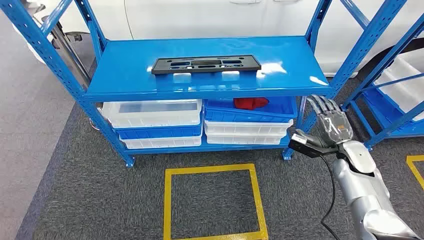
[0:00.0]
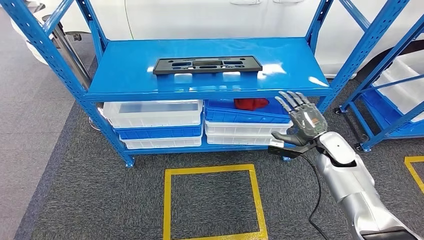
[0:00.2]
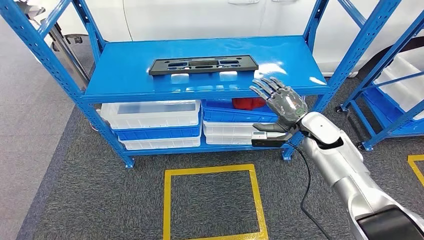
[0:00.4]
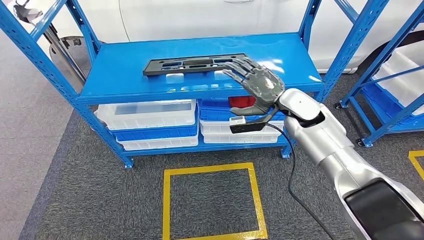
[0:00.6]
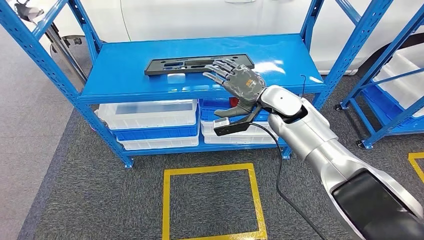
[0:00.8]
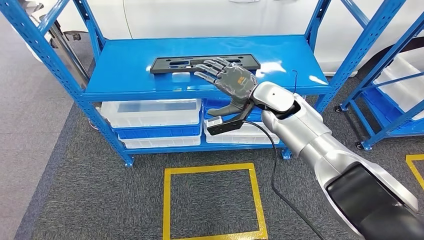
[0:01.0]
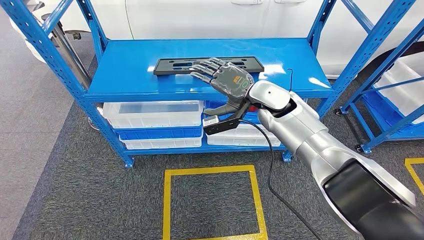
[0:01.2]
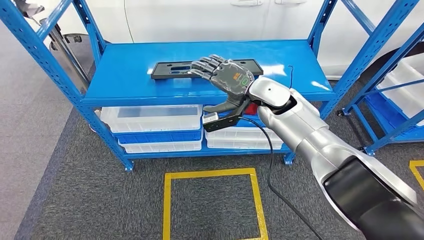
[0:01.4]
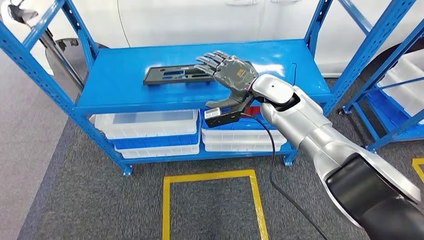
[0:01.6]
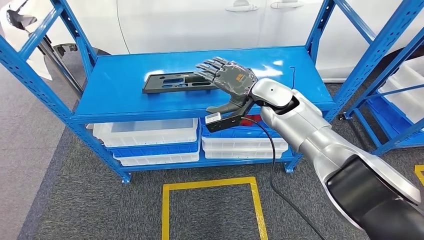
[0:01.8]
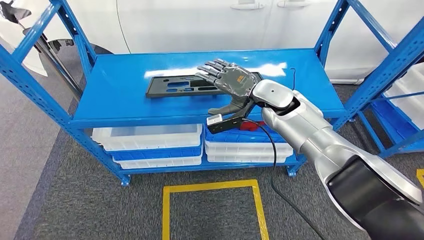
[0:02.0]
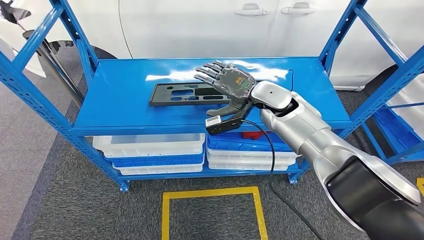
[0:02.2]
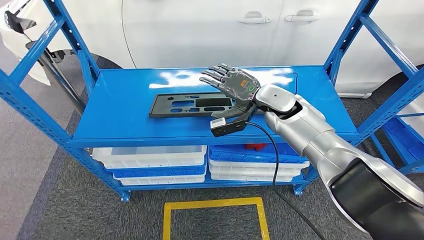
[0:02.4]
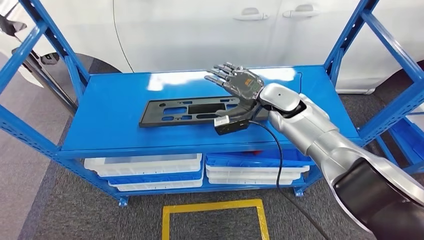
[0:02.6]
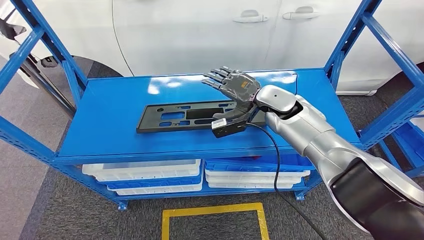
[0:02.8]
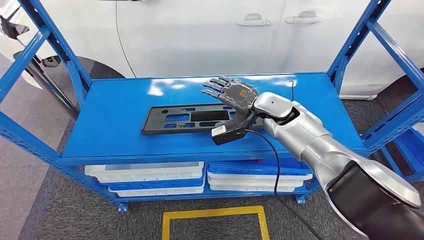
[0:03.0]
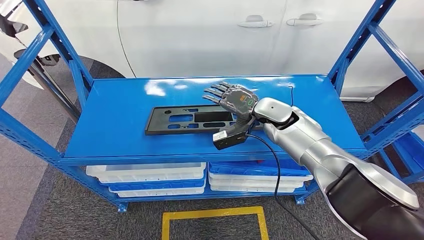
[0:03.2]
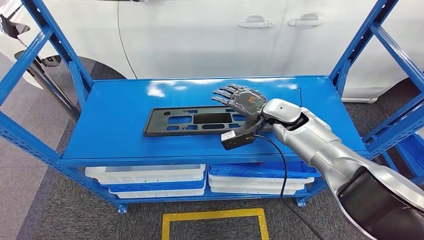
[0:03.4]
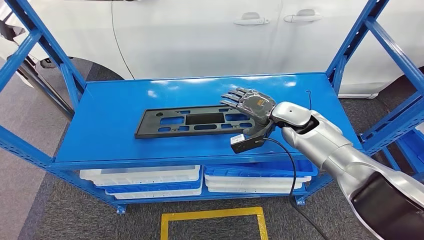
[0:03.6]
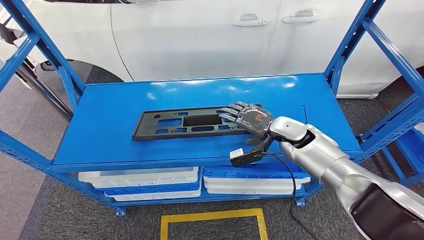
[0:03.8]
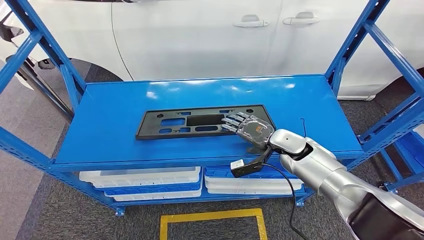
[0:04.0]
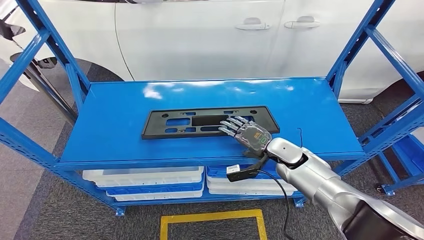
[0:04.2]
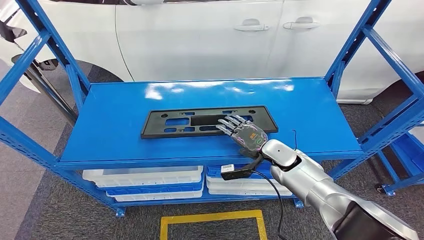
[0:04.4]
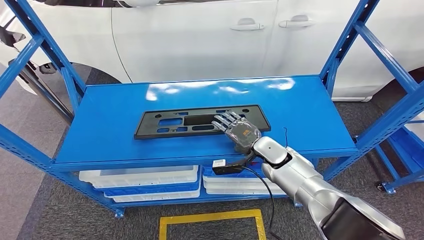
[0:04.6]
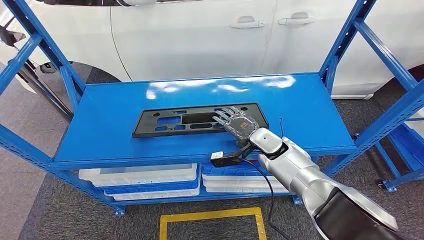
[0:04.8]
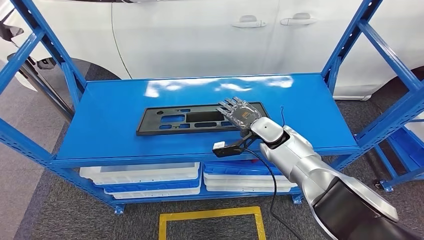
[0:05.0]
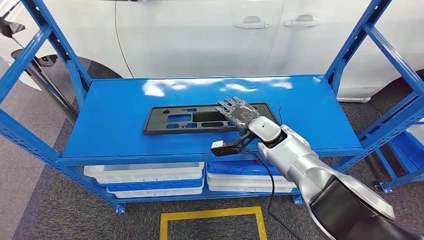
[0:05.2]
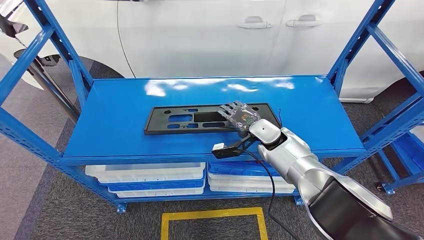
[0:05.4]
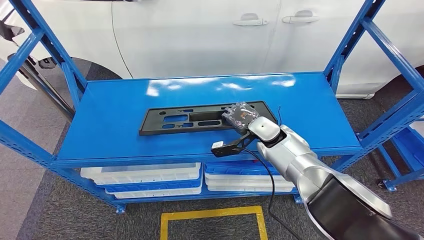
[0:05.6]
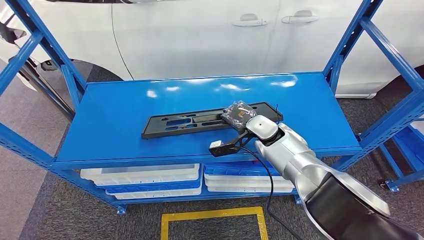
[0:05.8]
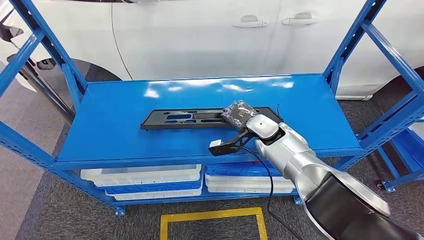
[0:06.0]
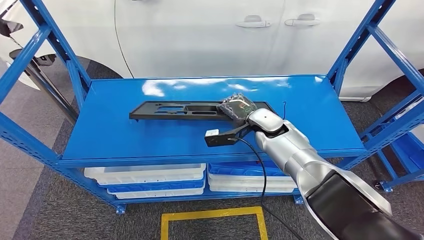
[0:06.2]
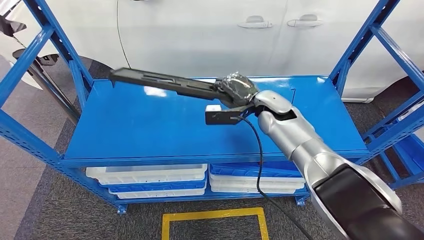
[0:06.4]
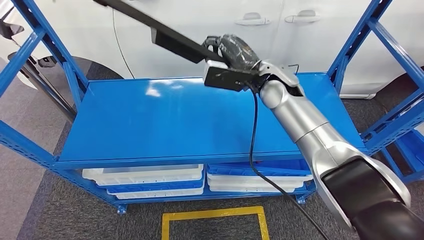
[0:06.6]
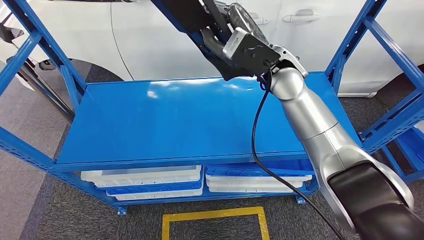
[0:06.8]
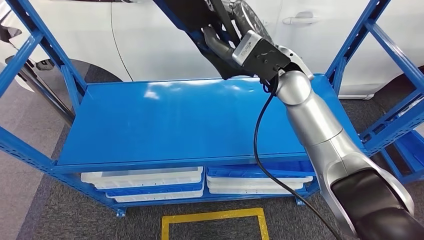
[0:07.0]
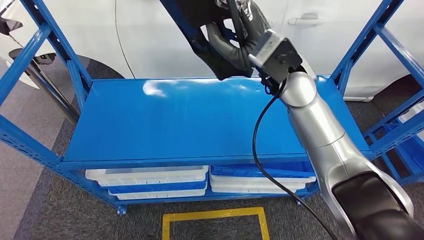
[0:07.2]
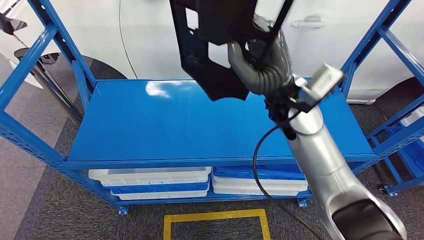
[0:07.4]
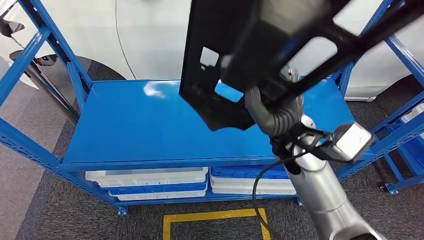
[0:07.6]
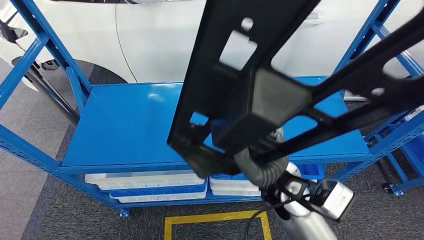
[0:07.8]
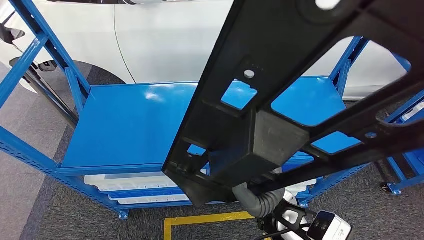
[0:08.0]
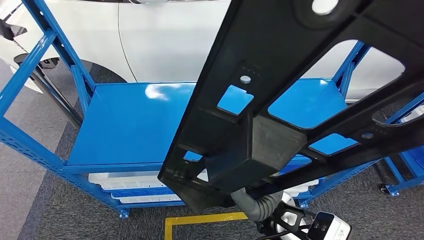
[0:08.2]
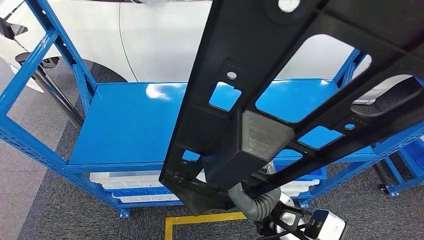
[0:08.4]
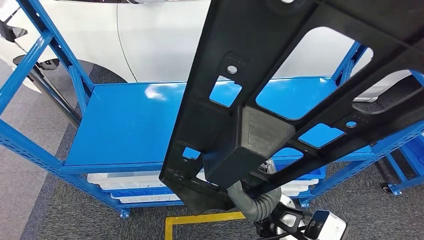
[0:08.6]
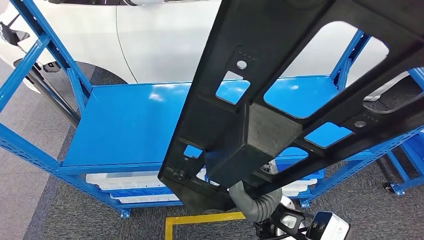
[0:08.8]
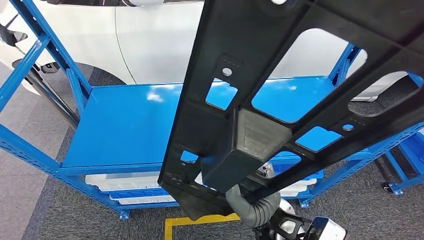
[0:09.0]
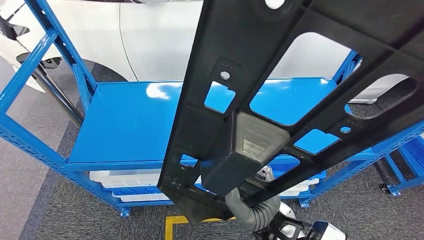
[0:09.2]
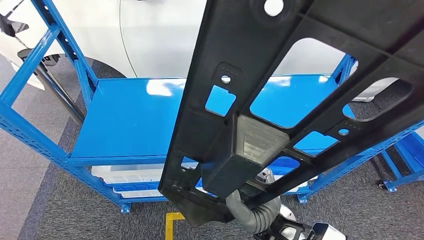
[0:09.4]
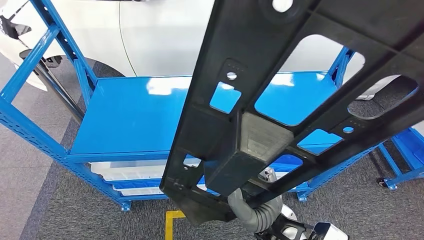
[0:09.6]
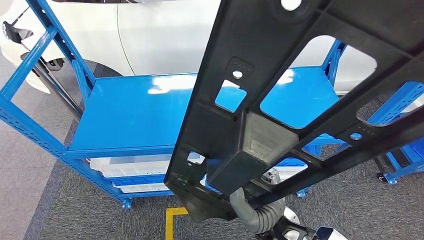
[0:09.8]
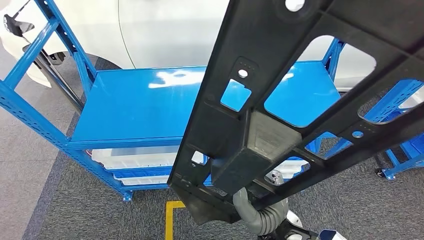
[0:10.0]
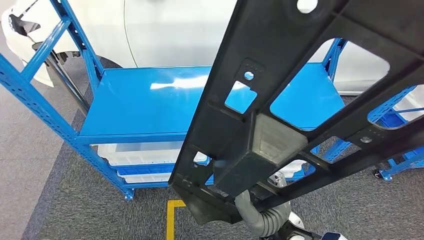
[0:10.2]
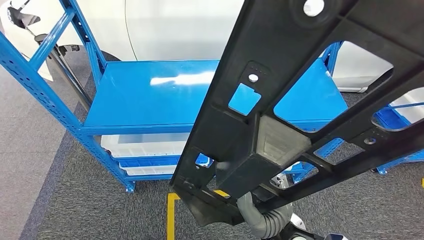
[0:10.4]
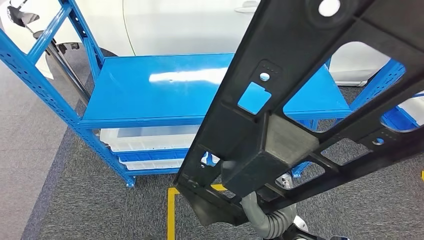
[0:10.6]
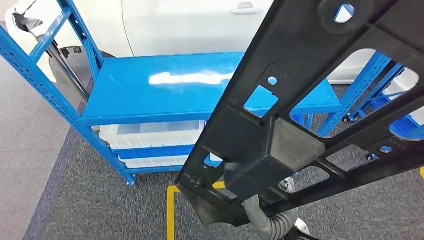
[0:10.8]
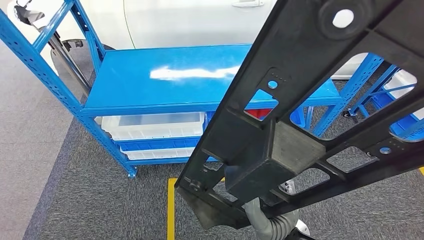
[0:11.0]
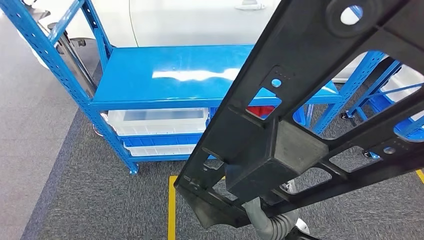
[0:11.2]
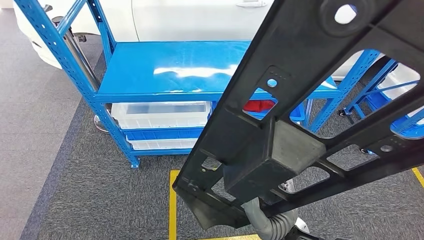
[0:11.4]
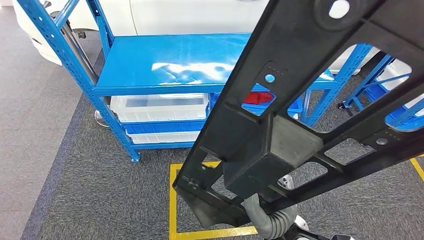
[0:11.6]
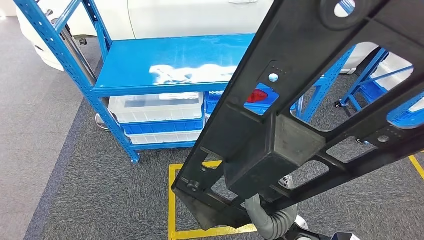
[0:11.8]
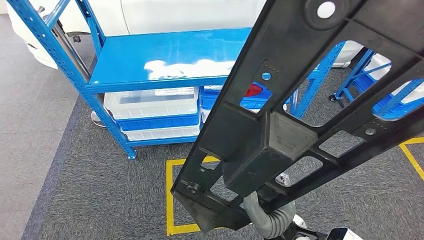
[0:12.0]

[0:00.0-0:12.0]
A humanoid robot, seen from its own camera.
Step, 0:00.0 to 0:06.4: Pick up the large material from the shelf.

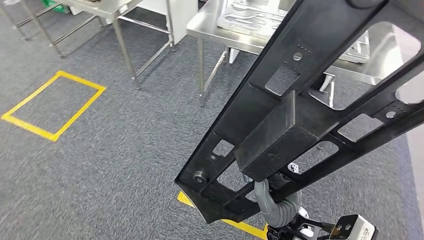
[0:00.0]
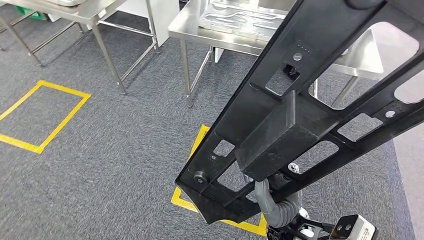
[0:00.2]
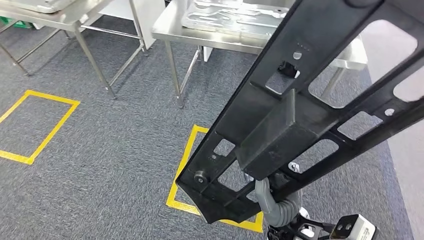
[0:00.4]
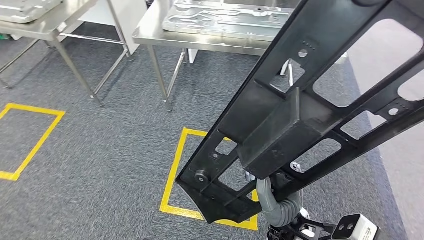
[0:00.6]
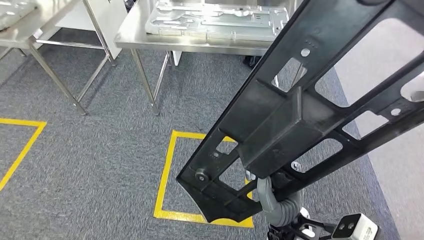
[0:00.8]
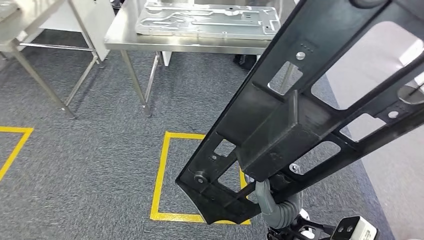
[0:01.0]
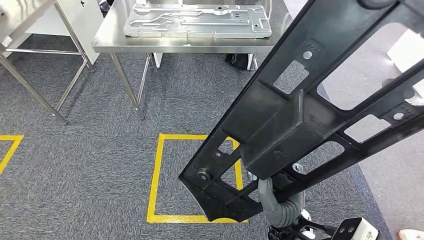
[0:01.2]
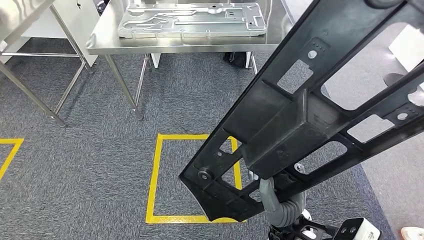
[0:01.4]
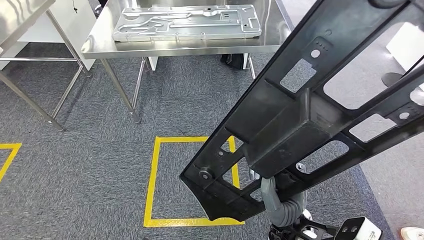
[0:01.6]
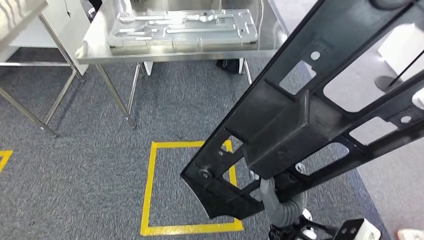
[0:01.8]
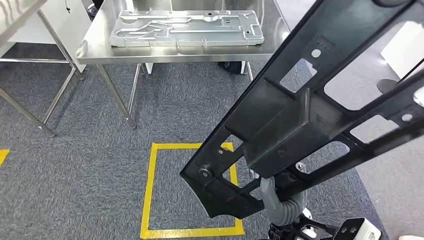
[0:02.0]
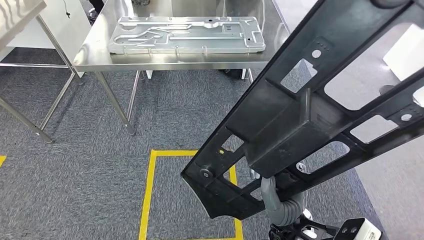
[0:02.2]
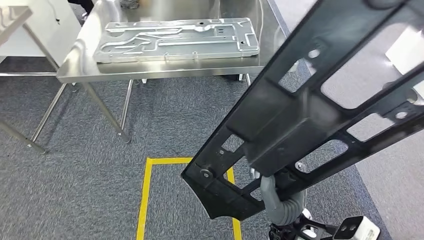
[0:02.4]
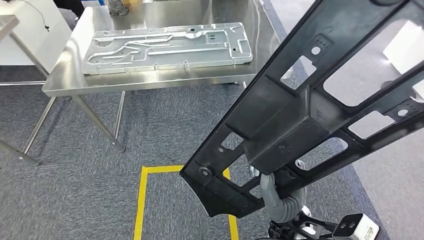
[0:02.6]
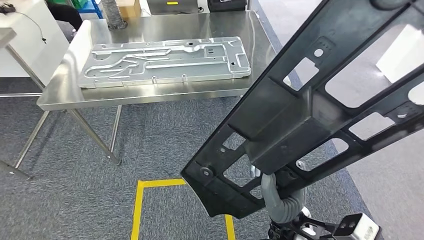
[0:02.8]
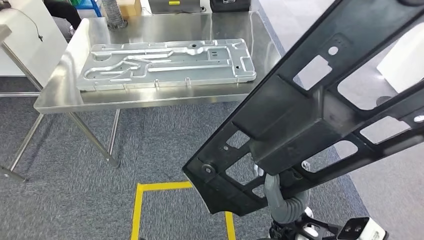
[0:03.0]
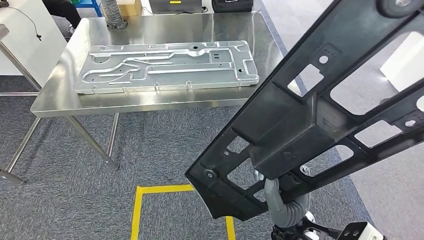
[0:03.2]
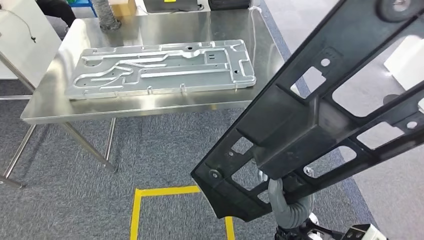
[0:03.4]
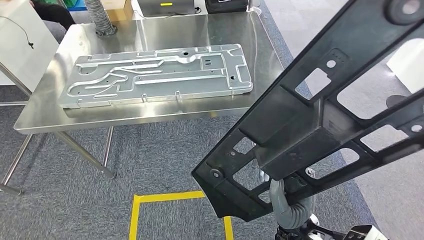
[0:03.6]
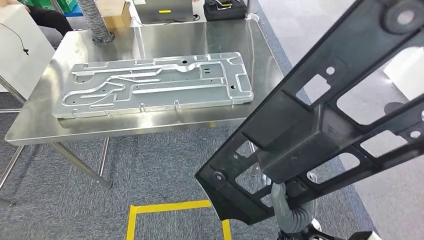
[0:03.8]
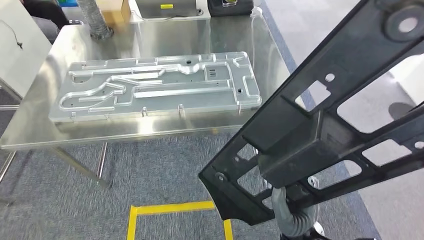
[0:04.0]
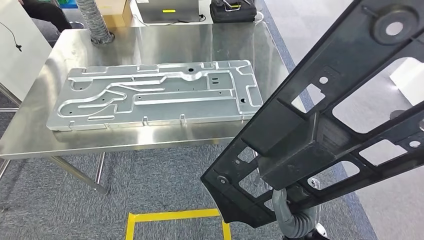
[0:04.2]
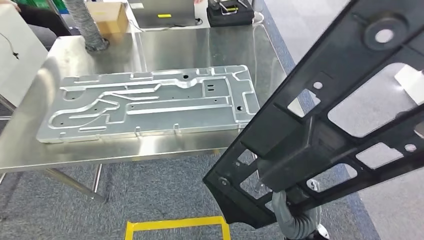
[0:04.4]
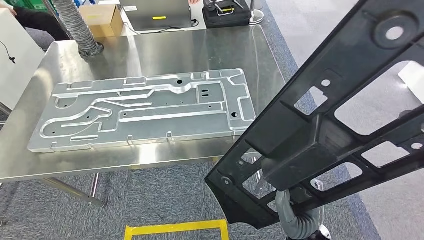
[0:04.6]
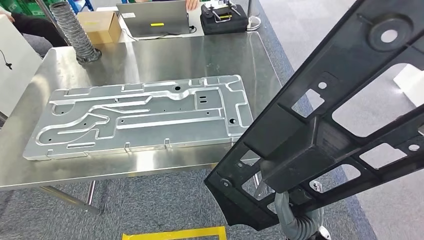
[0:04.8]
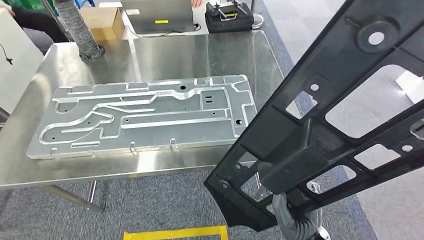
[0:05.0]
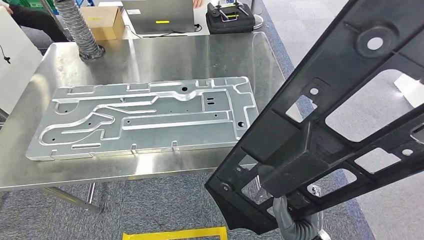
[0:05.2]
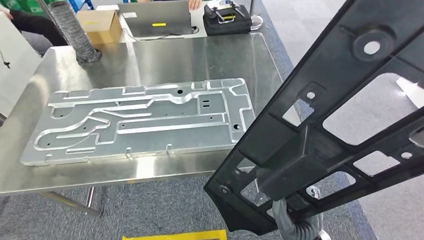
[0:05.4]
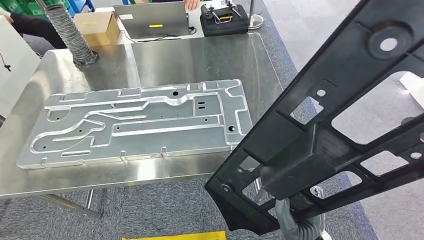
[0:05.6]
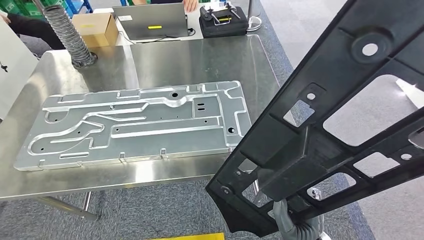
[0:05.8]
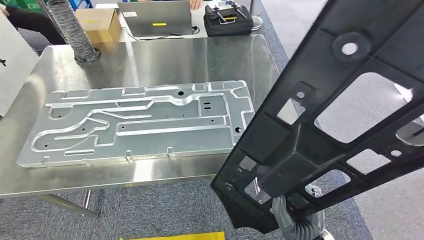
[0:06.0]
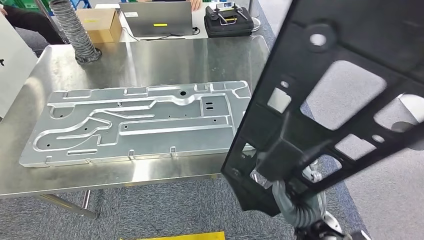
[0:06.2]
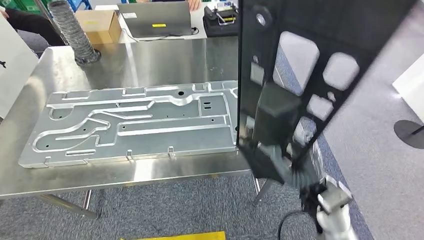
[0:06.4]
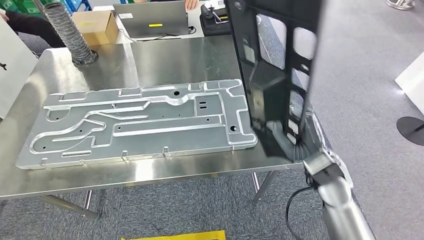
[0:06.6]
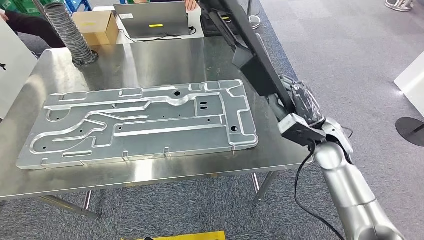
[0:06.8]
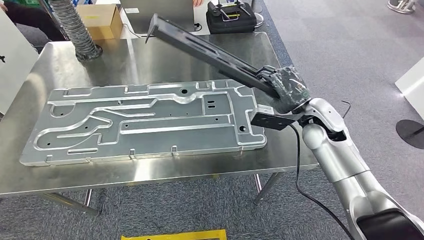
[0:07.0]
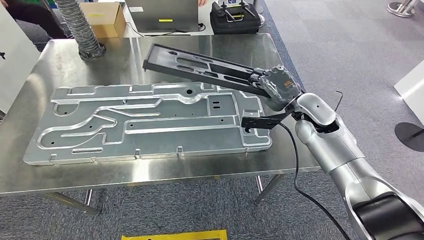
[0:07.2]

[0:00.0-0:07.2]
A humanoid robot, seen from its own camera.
Step, 0:00.0 to 0:06.8: Move the large material to the workbench.
